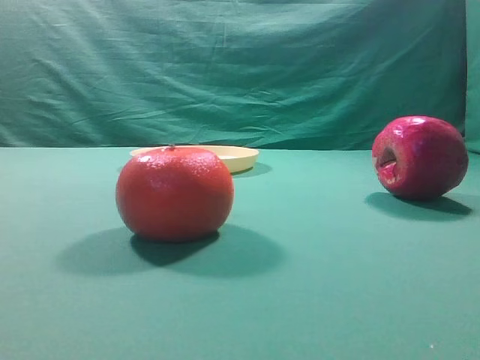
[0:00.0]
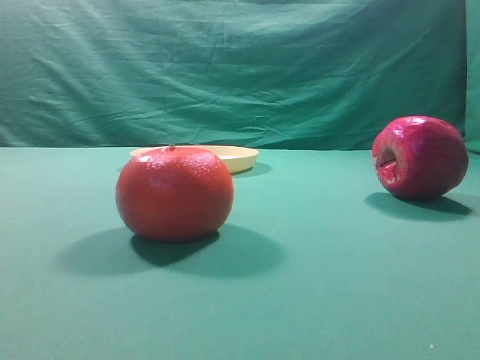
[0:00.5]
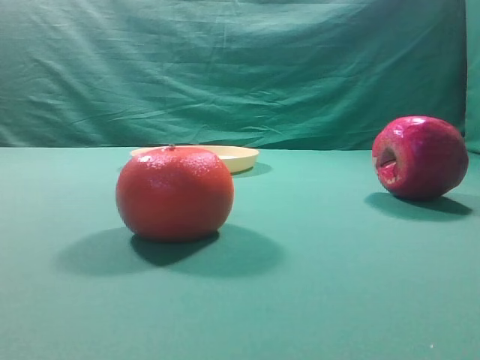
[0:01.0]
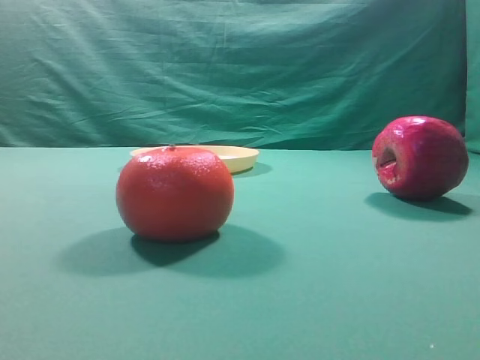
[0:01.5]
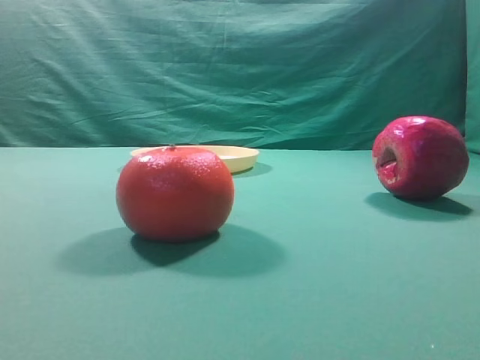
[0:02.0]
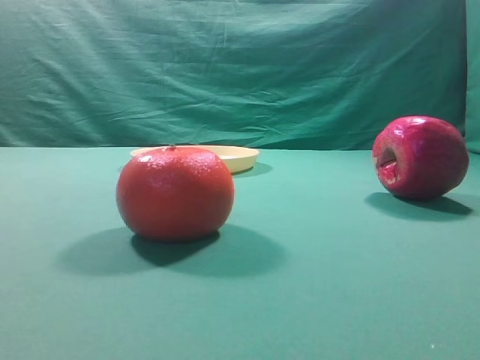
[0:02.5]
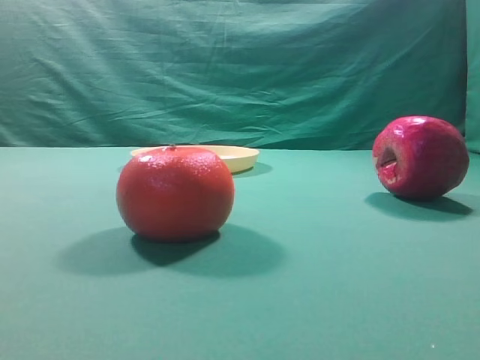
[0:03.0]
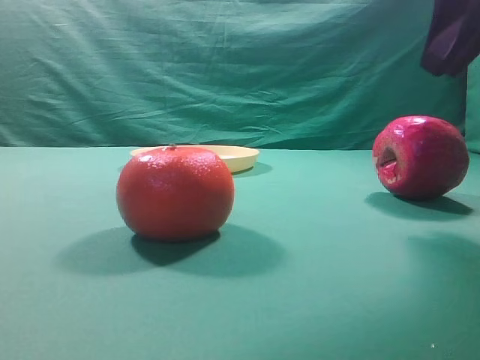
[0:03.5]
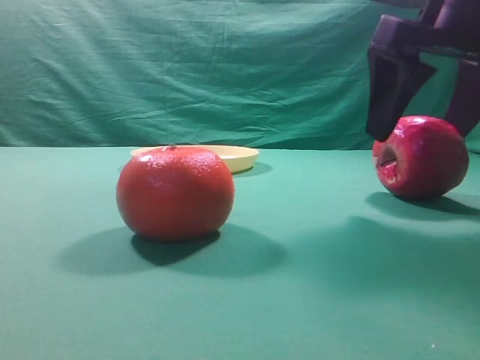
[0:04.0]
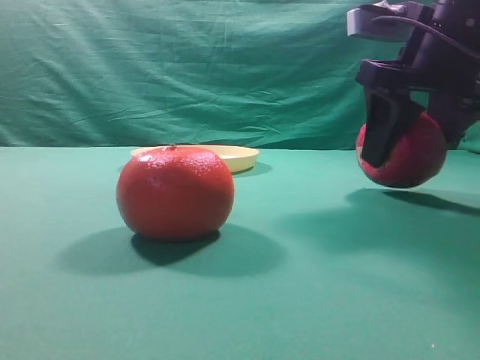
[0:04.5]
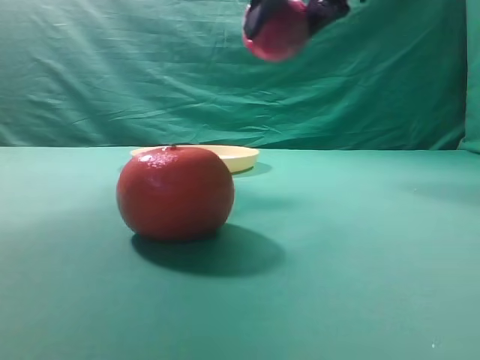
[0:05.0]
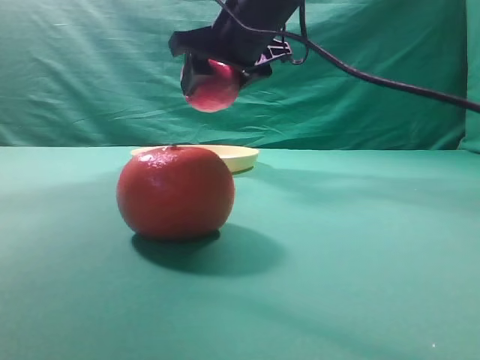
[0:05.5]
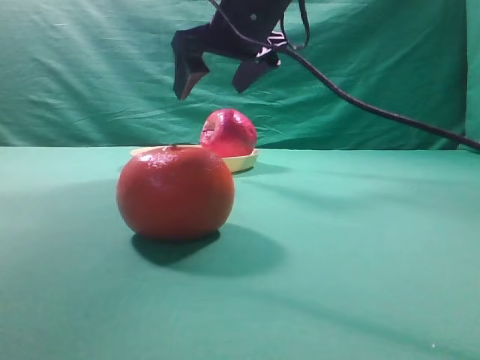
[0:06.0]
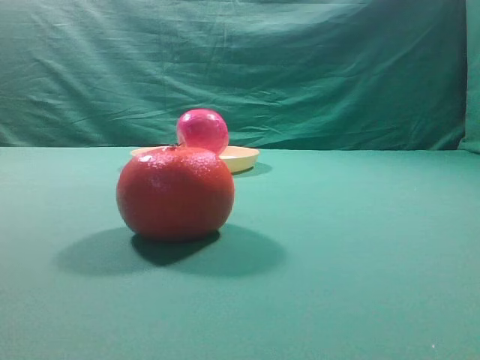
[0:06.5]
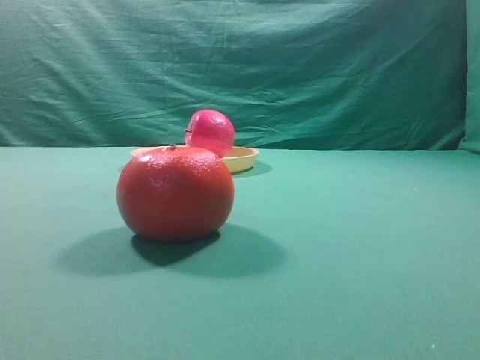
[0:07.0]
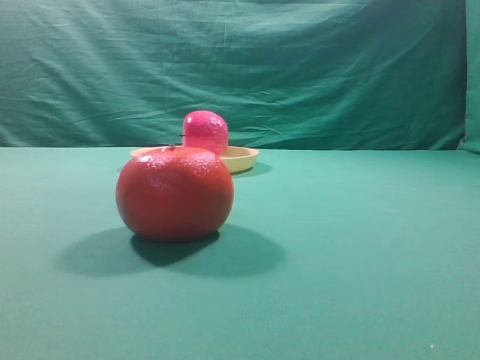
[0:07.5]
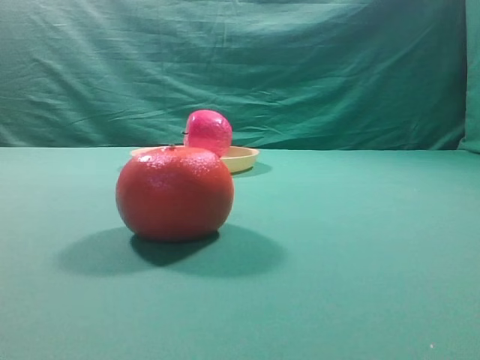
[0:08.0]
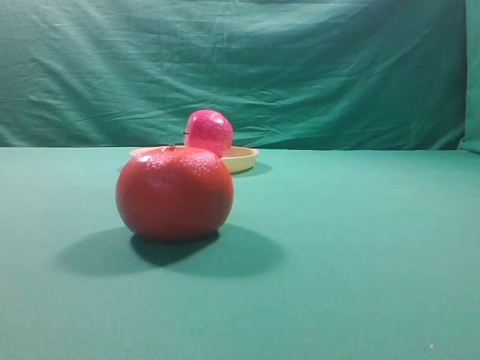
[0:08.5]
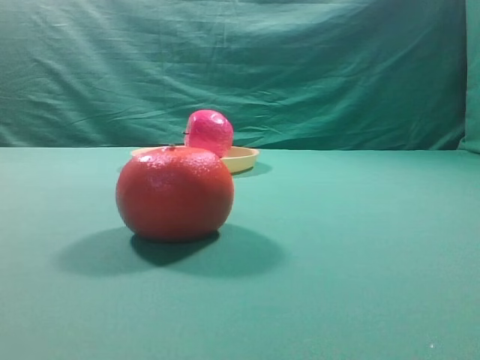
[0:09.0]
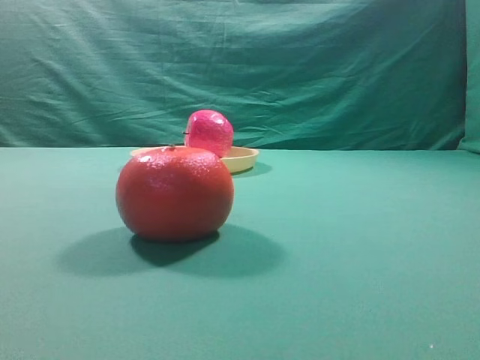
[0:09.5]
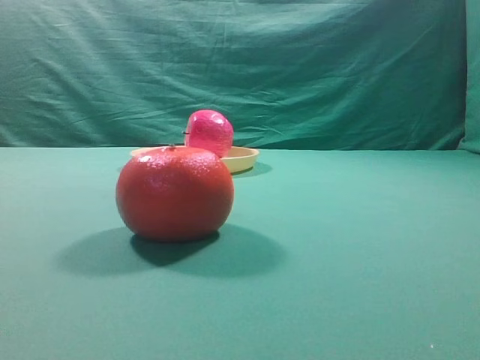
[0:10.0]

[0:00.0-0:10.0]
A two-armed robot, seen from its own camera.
Task of the whole recording: grasp the apple and place it into the yellow plate.
Step, 0:00.0 to 0:04.5: Grasp the fruit that can keep the doctor away.
Step, 0:05.0 to 0:05.5: Place the picked object into the yellow plate.

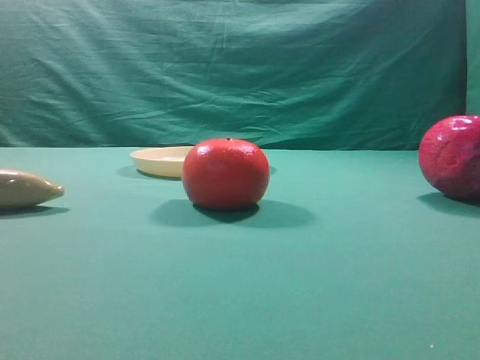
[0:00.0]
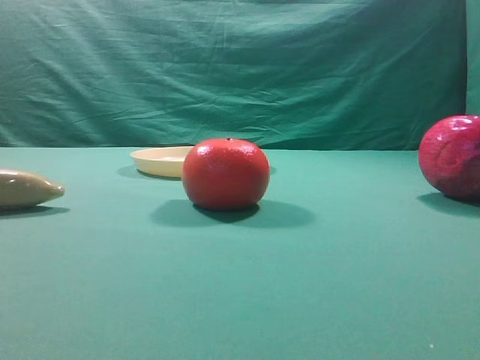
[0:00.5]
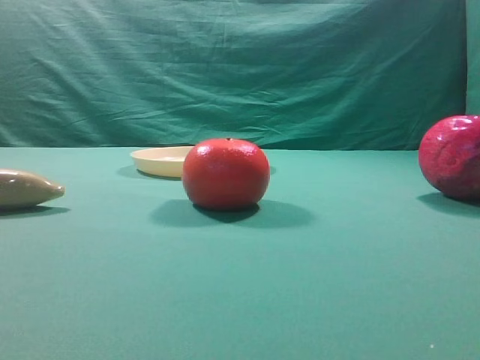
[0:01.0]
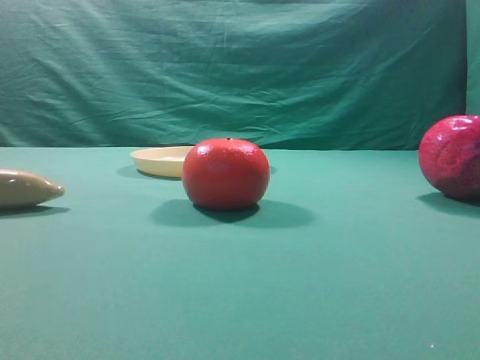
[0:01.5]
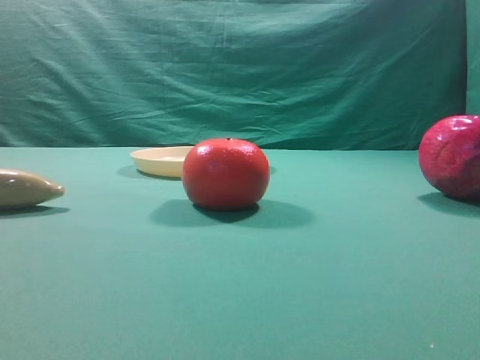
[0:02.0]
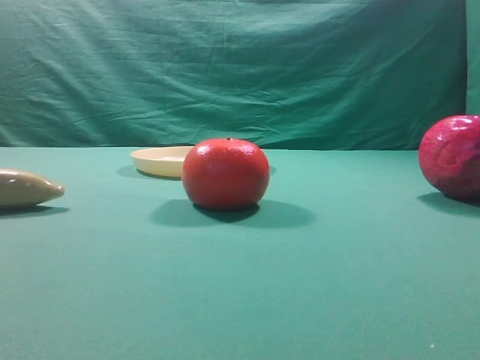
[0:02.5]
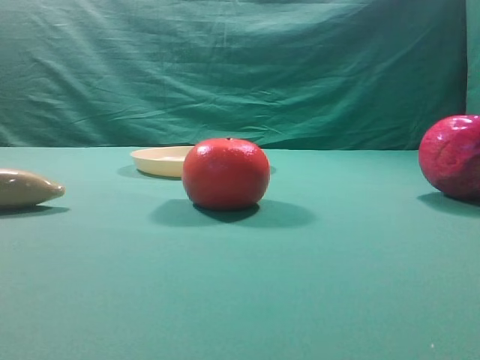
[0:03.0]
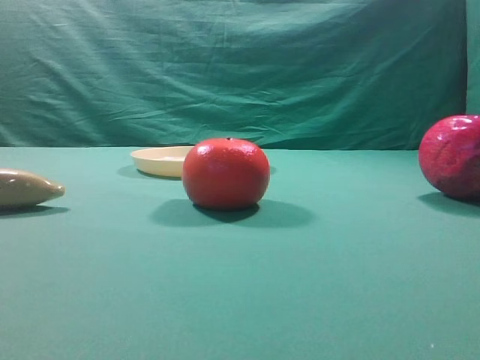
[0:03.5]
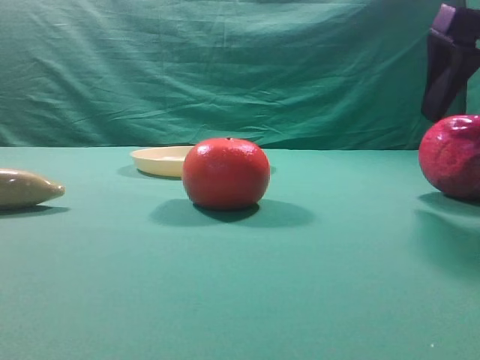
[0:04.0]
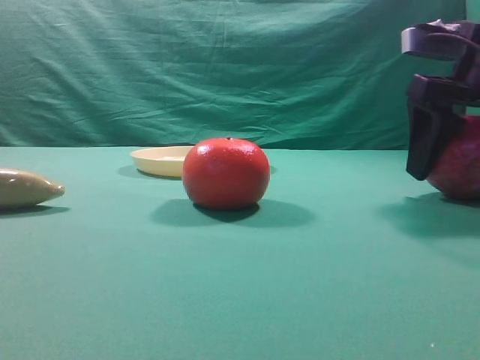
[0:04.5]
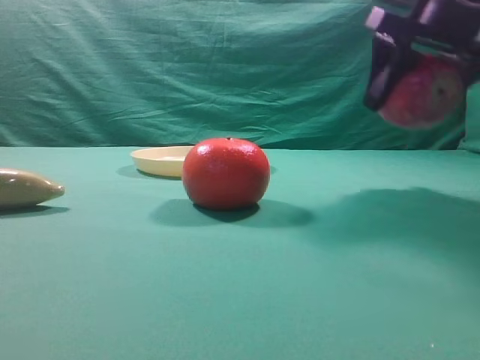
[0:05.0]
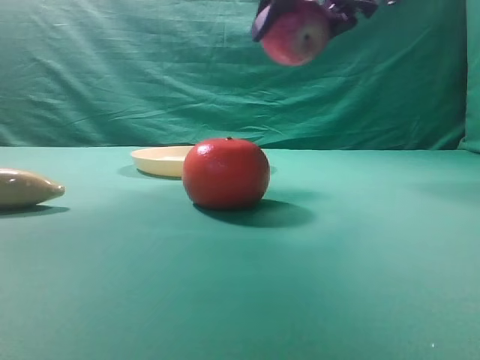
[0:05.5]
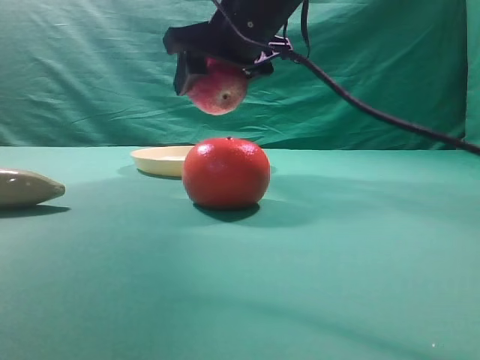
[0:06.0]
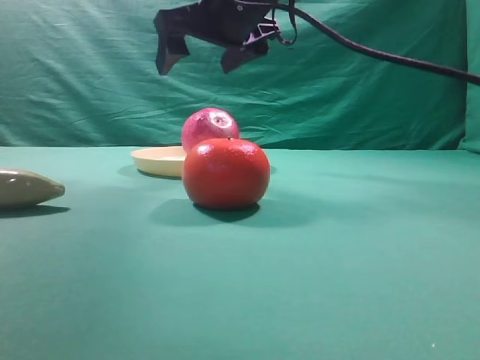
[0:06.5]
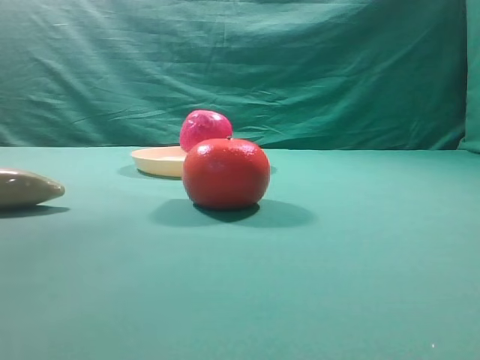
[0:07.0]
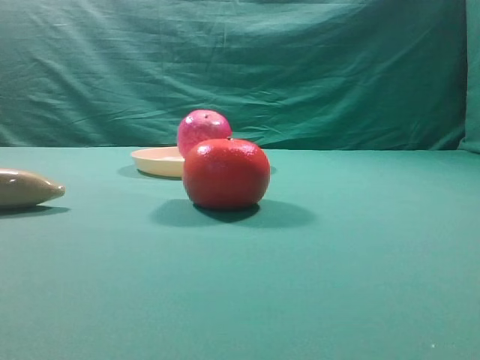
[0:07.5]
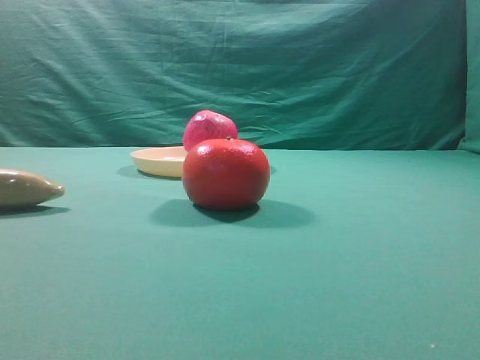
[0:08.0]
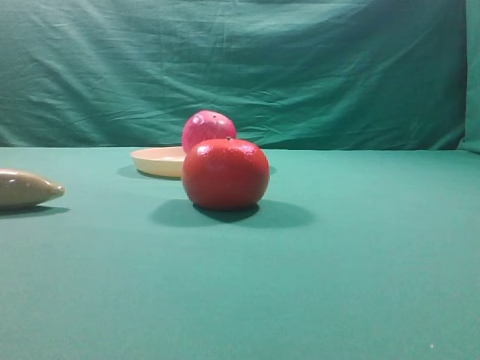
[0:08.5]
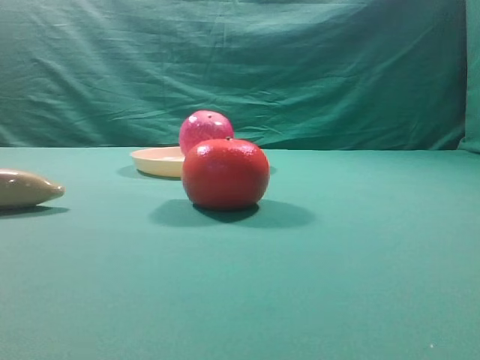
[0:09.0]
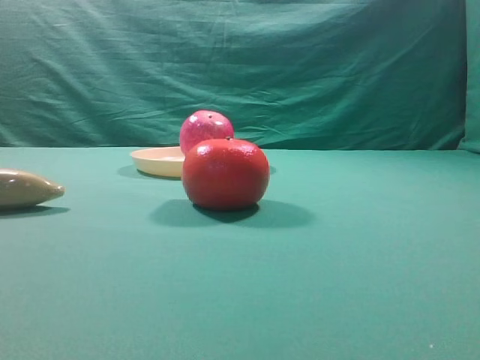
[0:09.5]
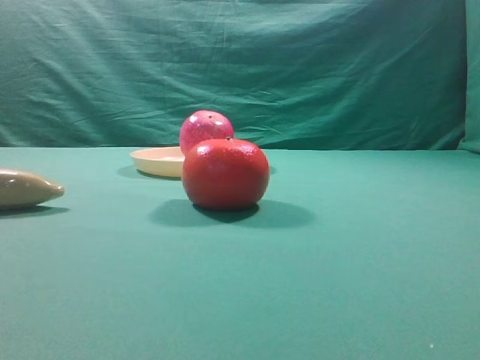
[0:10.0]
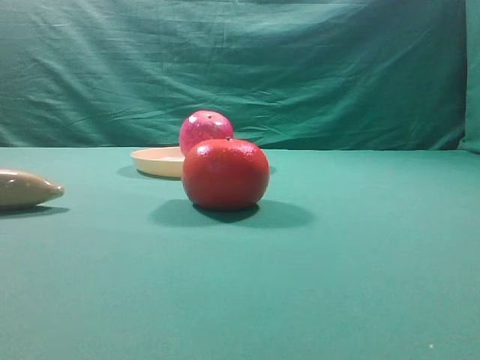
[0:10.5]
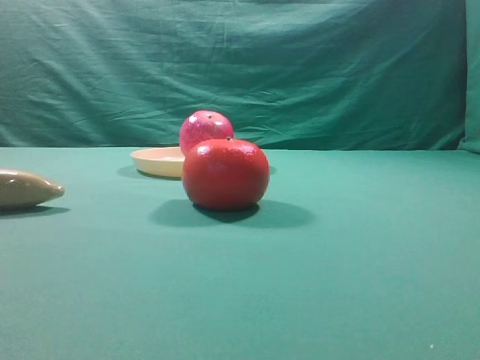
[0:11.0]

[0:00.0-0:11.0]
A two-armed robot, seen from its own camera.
Task of the whole recording: grasp the apple and place it into the yellow plate.
Step, 0:00.0 to 0:04.5: Grasp the fruit that can keep the doctor away.
Step, 0:05.0 to 0:06.5: Place the picked object into the yellow plate.

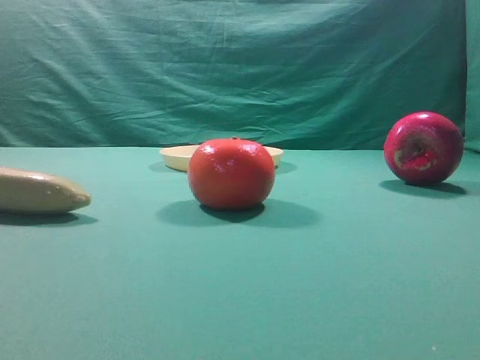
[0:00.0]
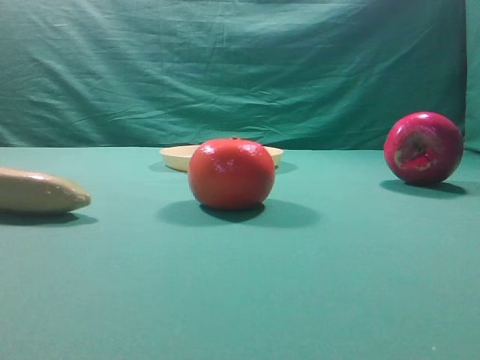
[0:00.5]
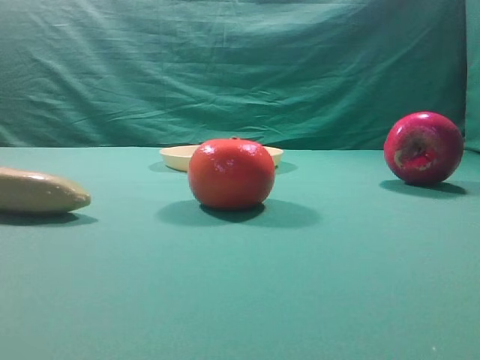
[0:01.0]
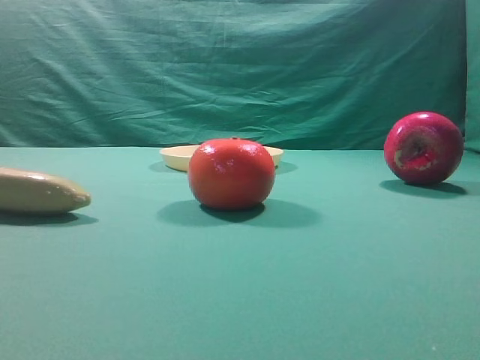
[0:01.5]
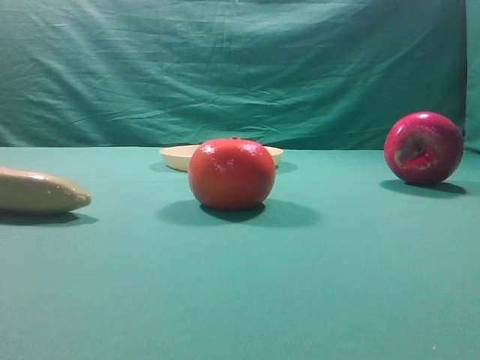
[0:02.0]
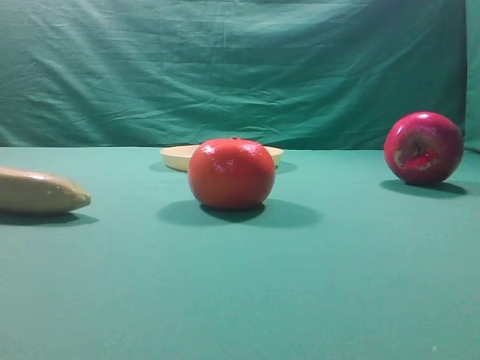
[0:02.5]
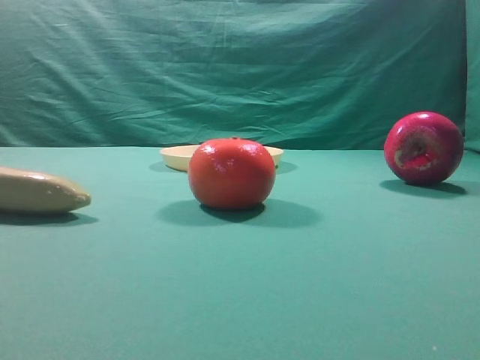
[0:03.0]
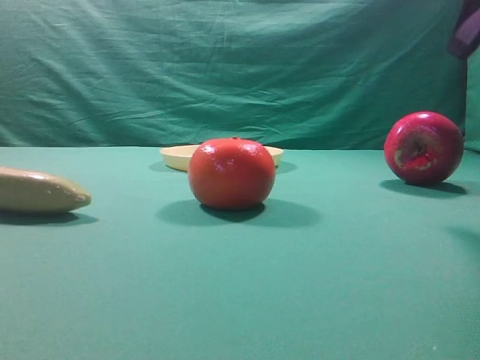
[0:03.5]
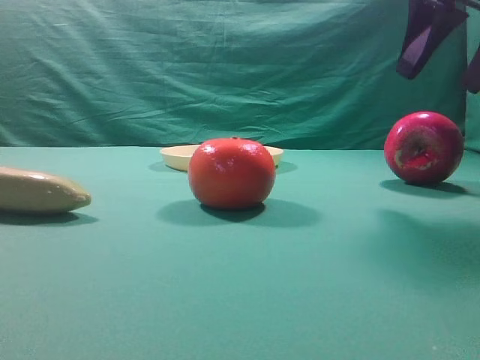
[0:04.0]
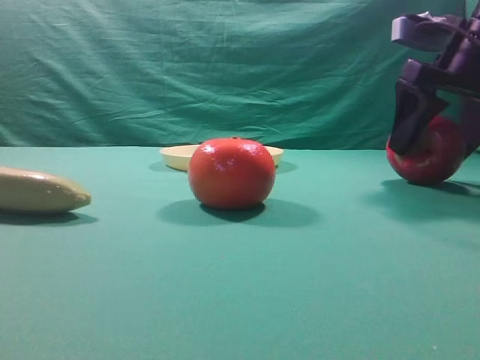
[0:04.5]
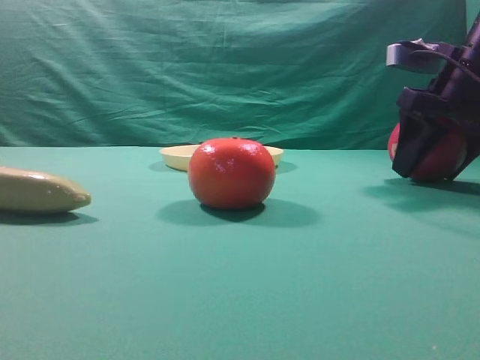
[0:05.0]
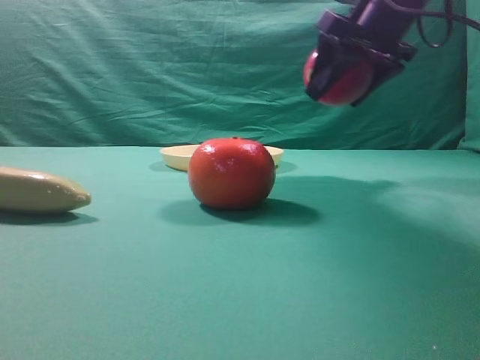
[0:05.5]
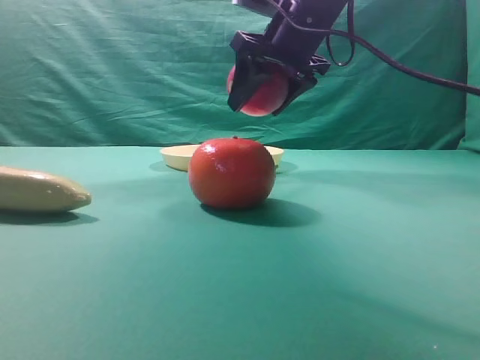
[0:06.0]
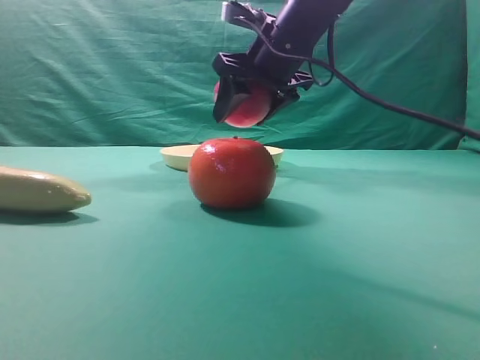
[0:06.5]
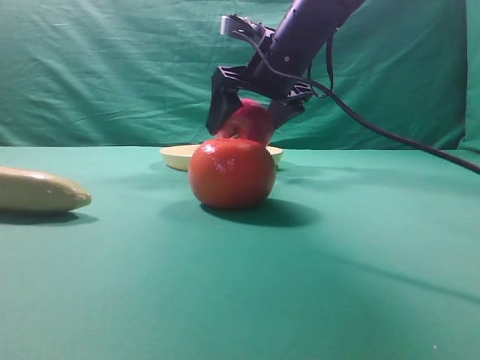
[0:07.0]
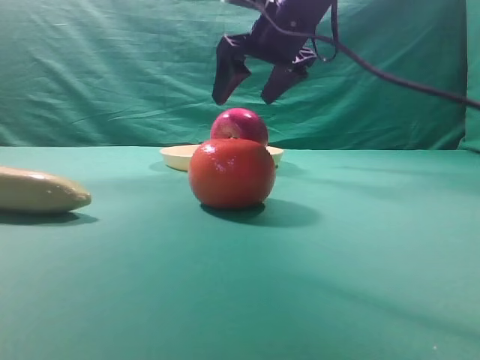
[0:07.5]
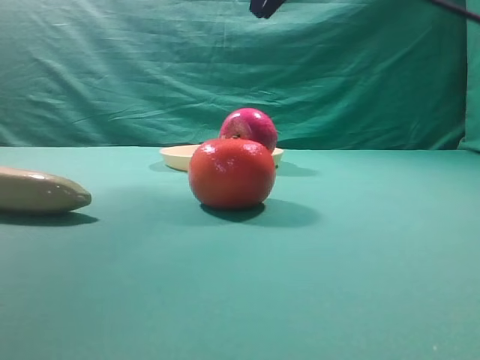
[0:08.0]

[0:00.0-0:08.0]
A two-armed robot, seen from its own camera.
Task of the whole recording: grasp the apple and place it into the yellow plate.
Step, 0:00.0 to 0:05.0: Grasp the fruit that can keep the doctor away.
Step, 0:05.5 to 0:07.5: Place the picked object into the yellow plate.
